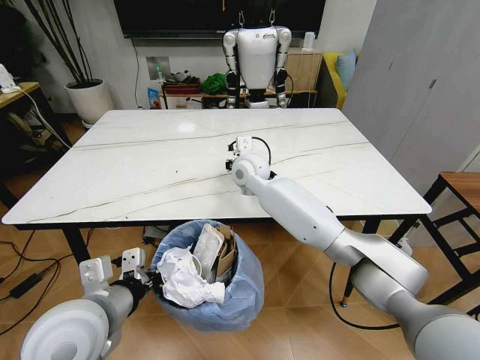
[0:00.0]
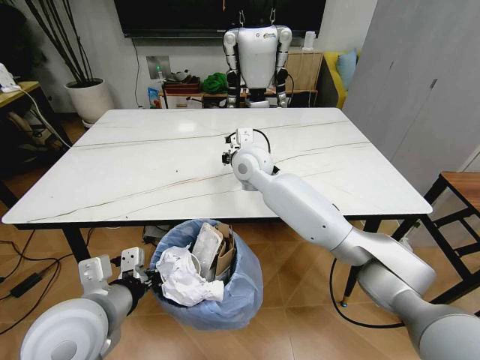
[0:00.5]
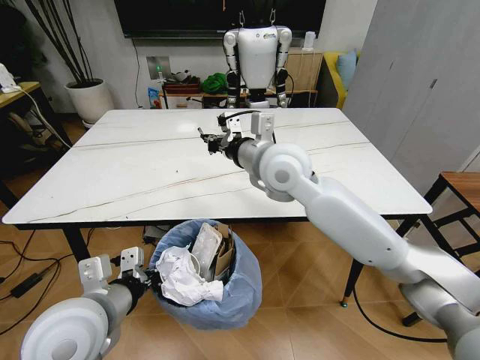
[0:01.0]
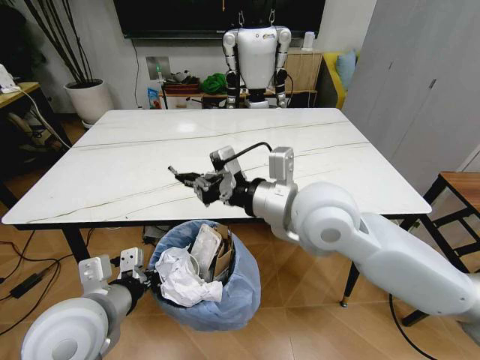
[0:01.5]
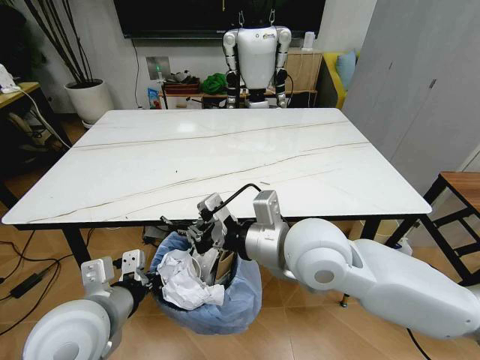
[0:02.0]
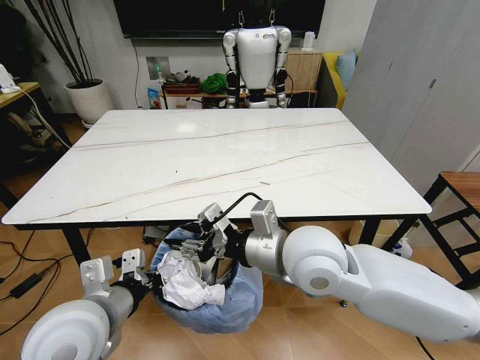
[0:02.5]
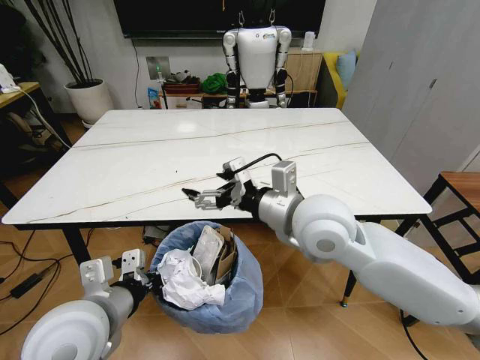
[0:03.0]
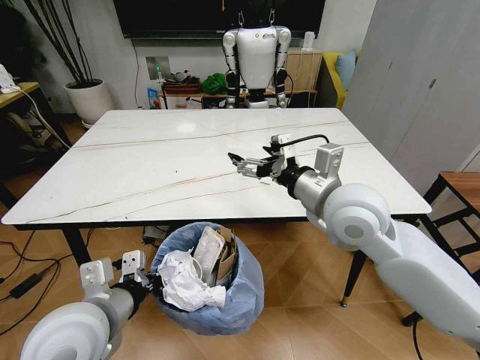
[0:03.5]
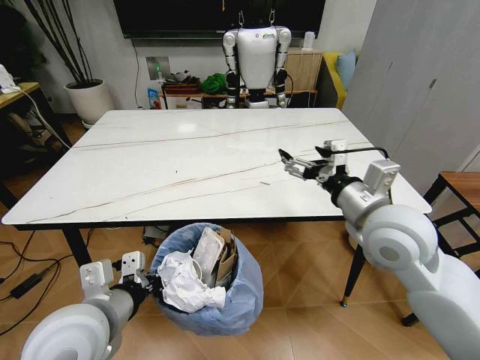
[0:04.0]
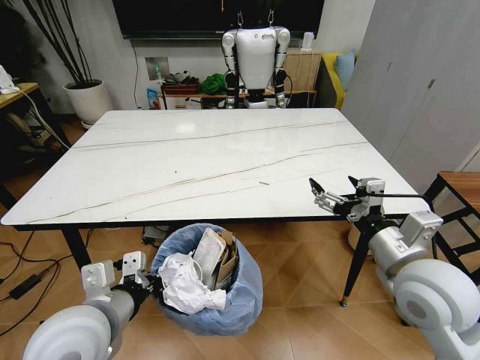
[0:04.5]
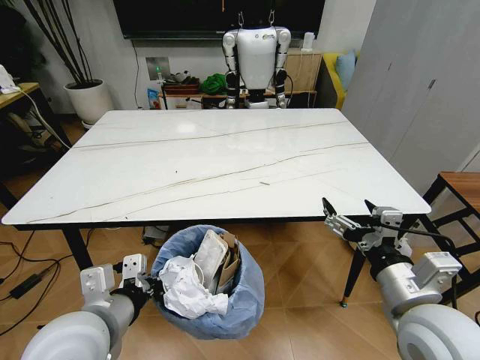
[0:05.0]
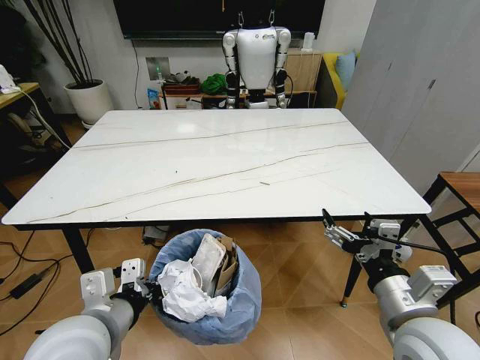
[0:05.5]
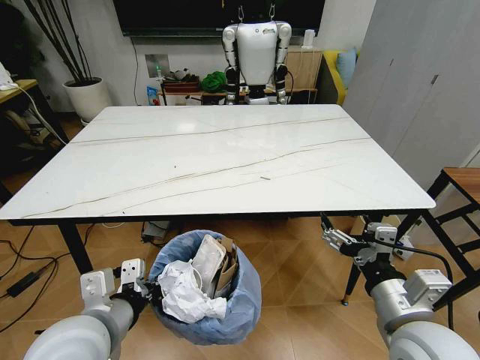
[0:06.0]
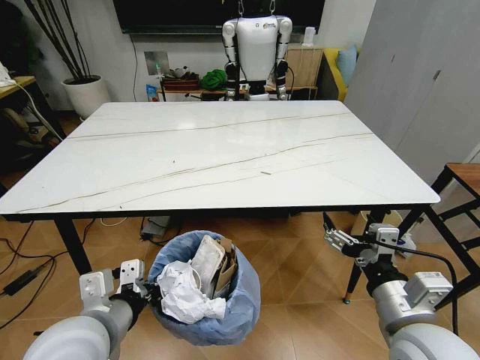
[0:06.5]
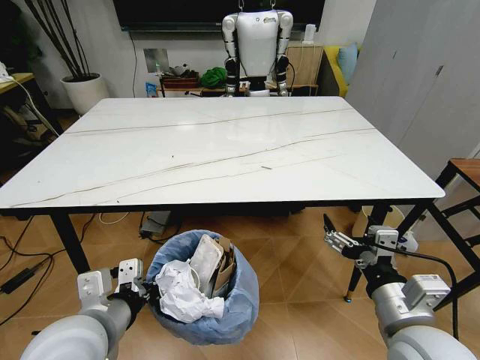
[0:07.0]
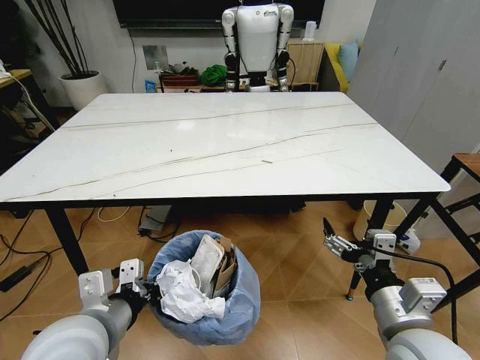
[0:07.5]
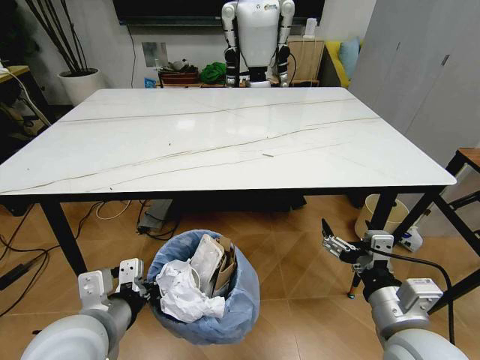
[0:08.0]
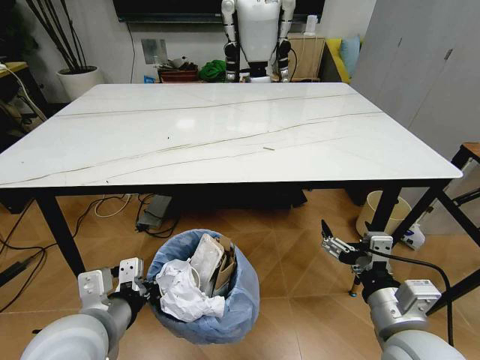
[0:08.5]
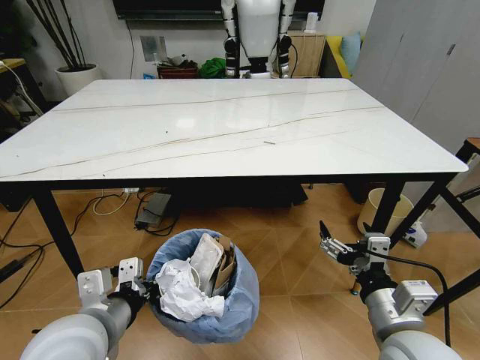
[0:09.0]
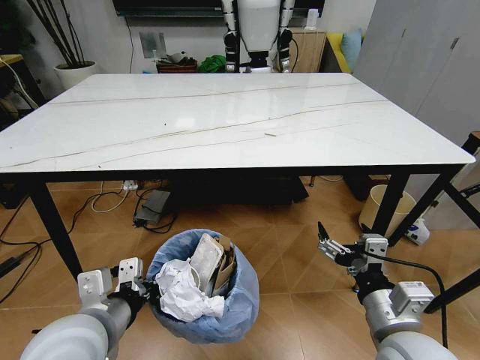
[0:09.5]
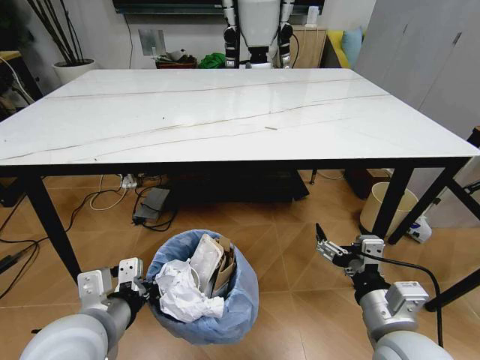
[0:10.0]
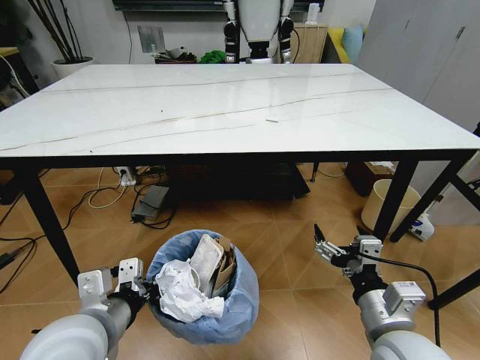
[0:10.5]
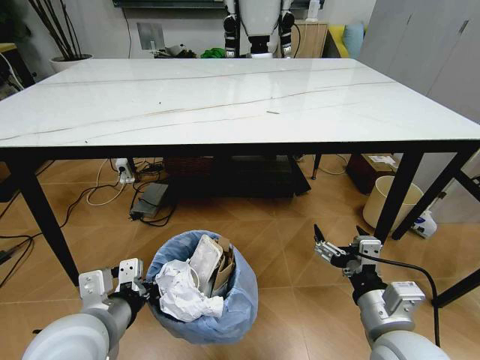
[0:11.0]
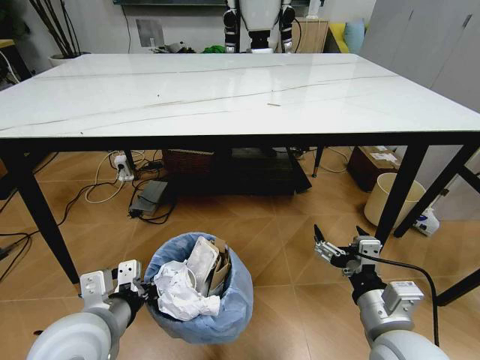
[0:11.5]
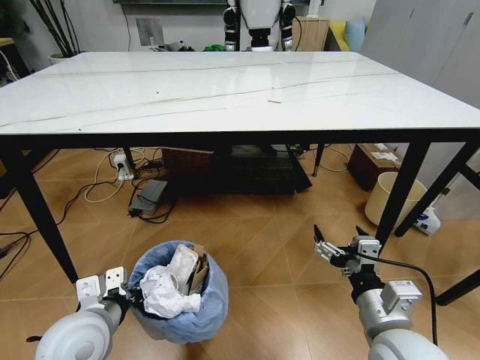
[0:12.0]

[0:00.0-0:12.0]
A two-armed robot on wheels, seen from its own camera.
Task of the whole recording: Pick up the trash bin and place the trash from the table into it.
0:00.0 to 0:02.0: The right gripper travels backward by approximately 25 cm.
0:02.0 to 0:04.0: The right gripper moves to the right, some 15 cm, and opens up.
0:04.0 to 0:06.0: The right gripper travels backward and downward by some 20 cm.
0:10.0 to 0:12.0: The left gripper heads downward, covering about 5 cm.

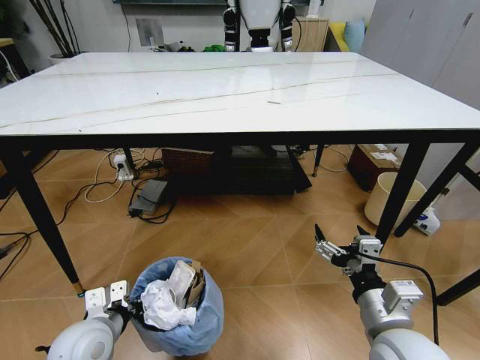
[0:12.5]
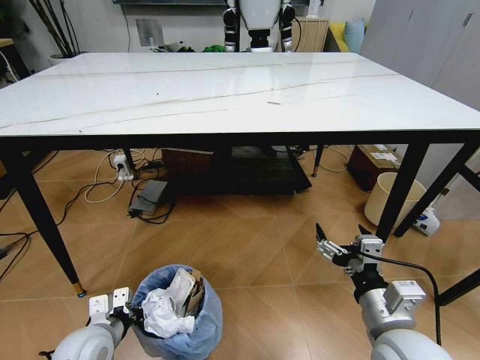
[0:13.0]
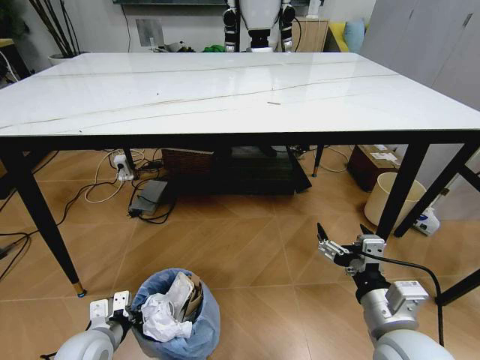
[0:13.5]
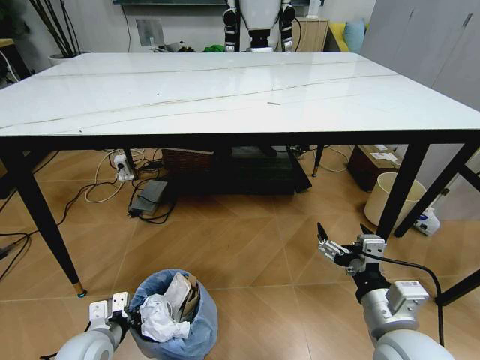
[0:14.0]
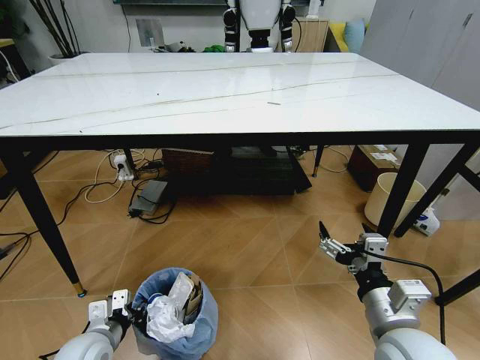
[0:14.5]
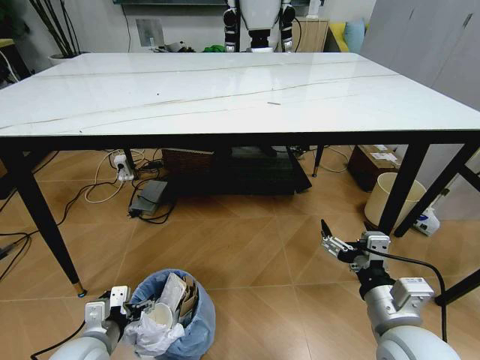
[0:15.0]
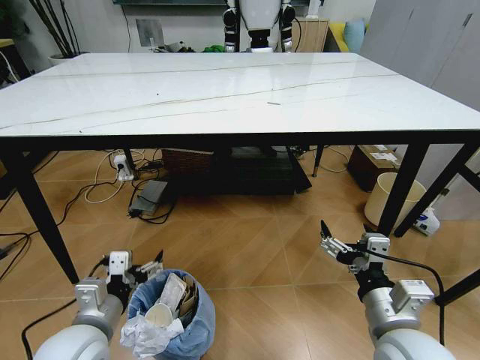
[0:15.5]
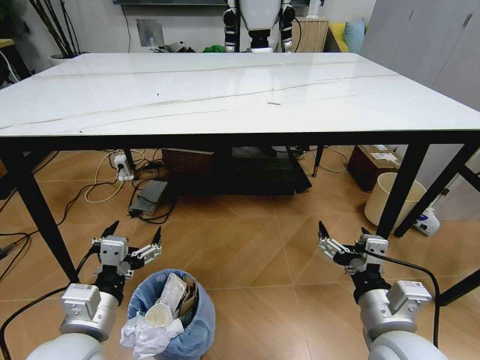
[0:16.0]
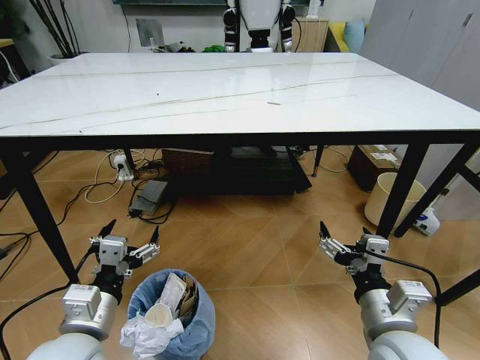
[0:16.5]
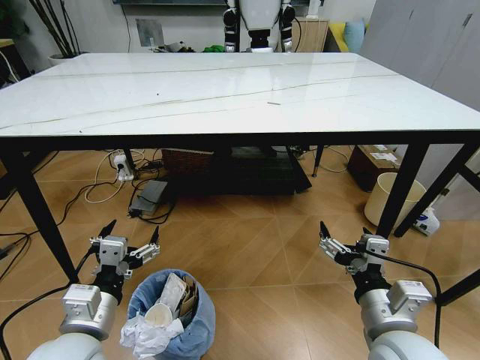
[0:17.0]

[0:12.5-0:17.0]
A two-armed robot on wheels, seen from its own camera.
Task of the whole recording: Pick up the trash bin and place the trash from the table into it.
0:12.5 to 0:14.5: The left gripper shifts some 5 cm downward, and opens up.
0:14.5 to 0:17.0: The left gripper shifts some 15 cm upward and to the right, and opens.
